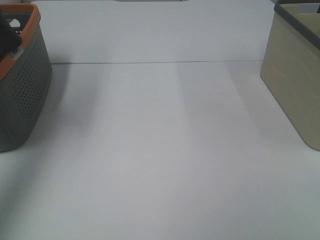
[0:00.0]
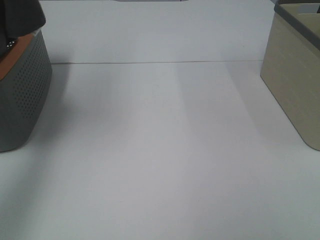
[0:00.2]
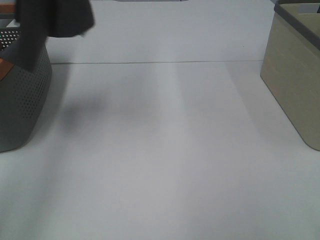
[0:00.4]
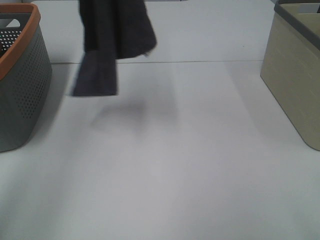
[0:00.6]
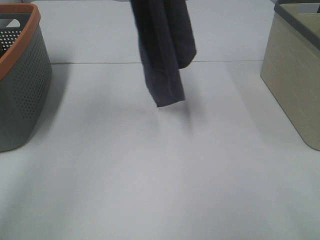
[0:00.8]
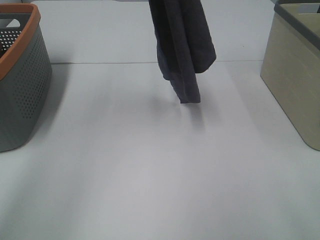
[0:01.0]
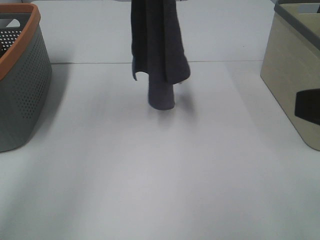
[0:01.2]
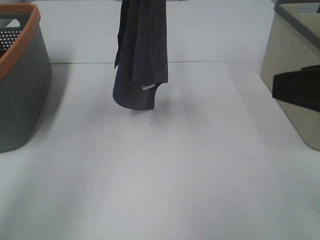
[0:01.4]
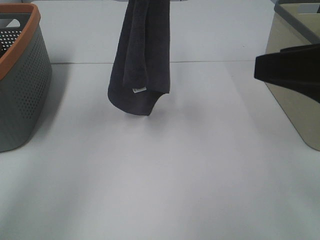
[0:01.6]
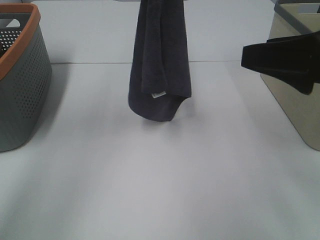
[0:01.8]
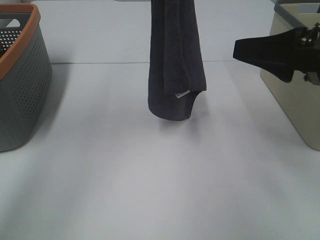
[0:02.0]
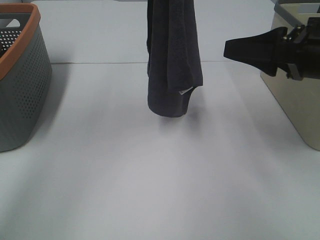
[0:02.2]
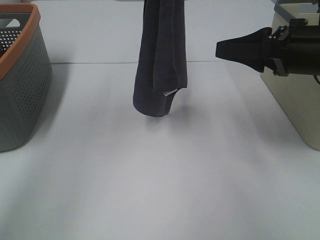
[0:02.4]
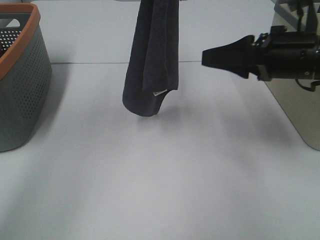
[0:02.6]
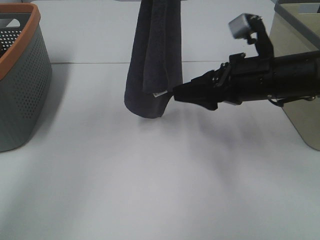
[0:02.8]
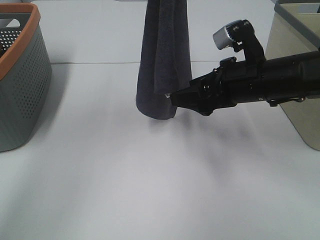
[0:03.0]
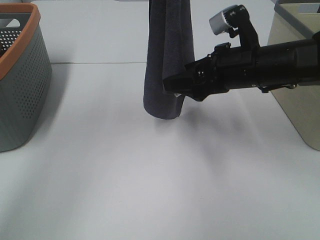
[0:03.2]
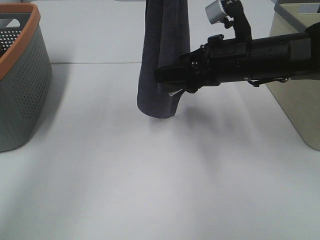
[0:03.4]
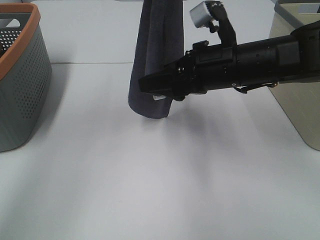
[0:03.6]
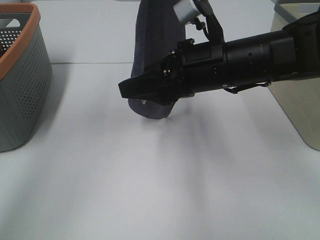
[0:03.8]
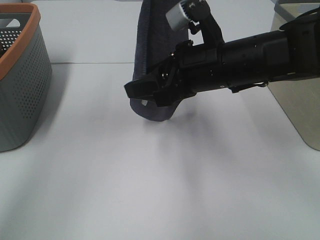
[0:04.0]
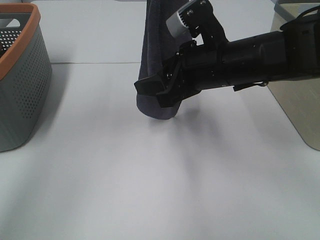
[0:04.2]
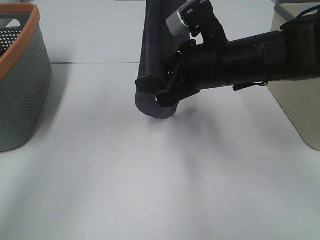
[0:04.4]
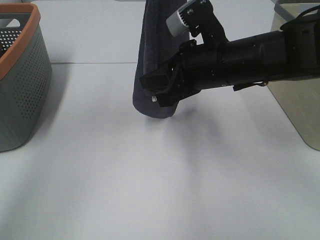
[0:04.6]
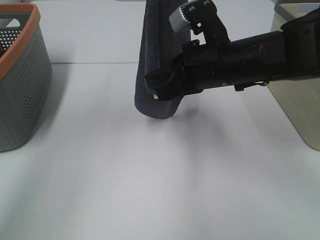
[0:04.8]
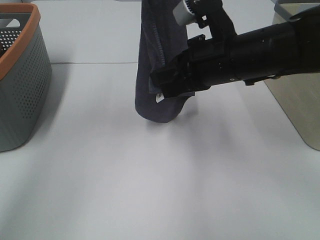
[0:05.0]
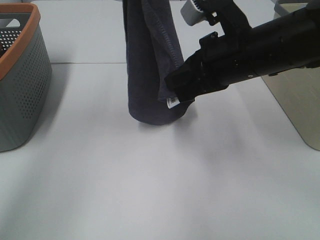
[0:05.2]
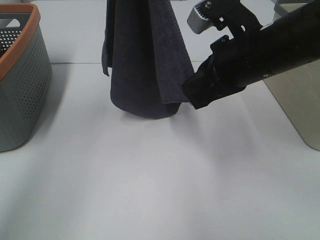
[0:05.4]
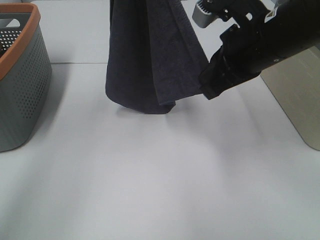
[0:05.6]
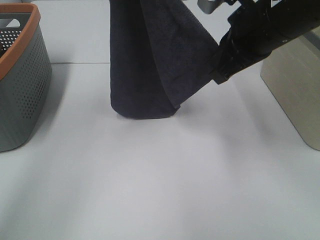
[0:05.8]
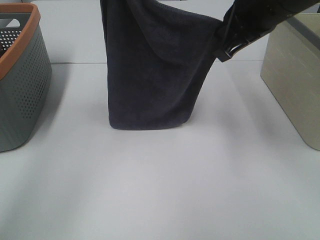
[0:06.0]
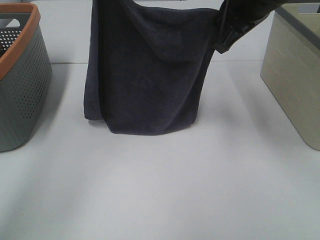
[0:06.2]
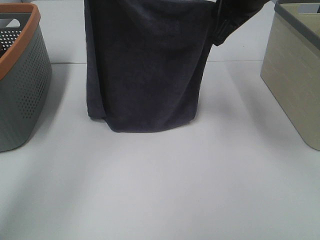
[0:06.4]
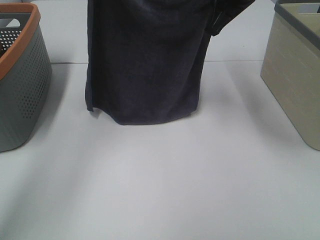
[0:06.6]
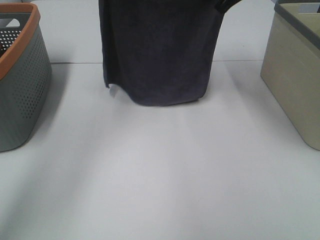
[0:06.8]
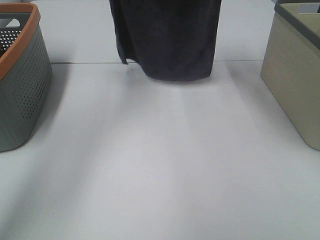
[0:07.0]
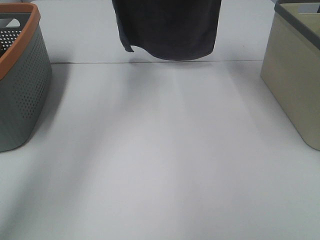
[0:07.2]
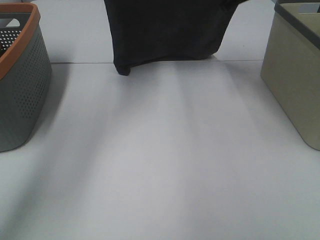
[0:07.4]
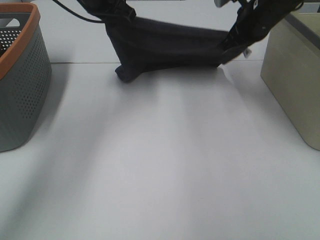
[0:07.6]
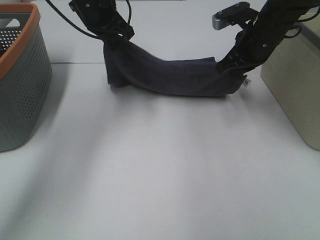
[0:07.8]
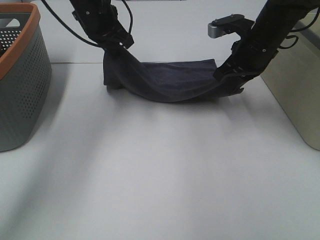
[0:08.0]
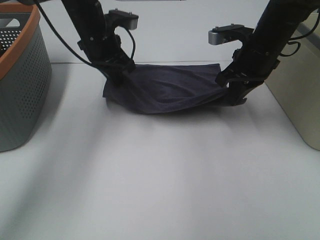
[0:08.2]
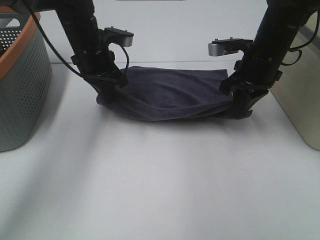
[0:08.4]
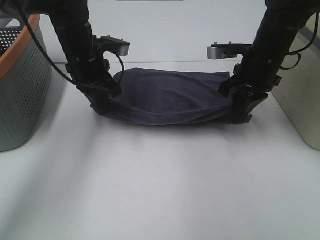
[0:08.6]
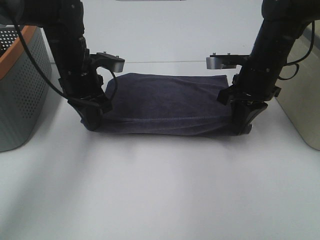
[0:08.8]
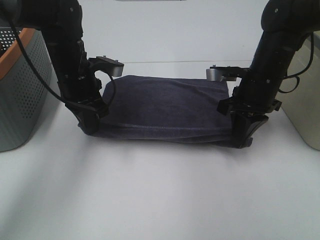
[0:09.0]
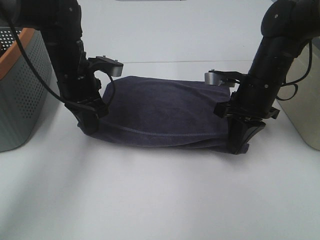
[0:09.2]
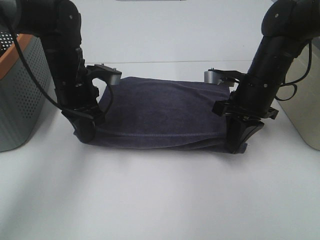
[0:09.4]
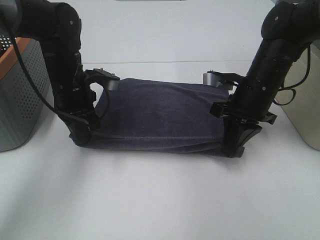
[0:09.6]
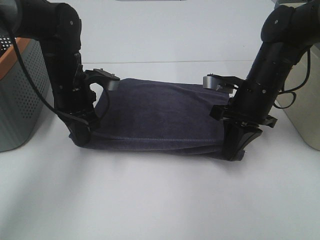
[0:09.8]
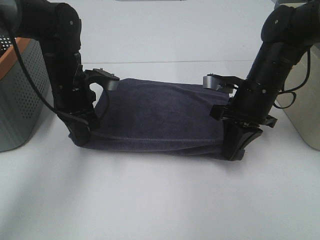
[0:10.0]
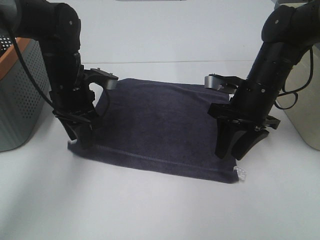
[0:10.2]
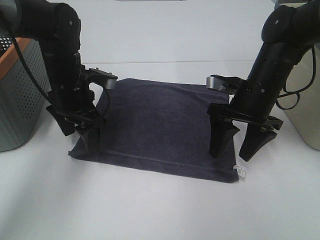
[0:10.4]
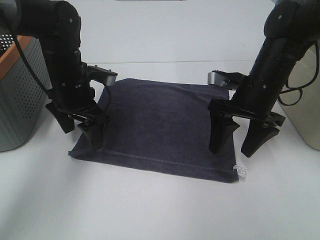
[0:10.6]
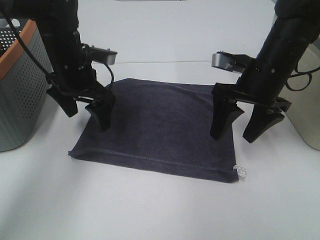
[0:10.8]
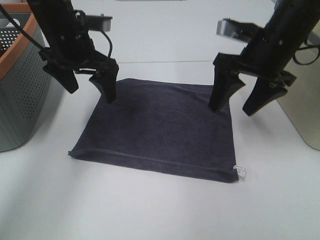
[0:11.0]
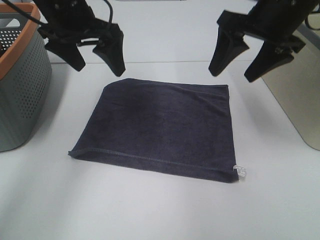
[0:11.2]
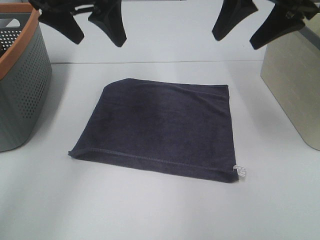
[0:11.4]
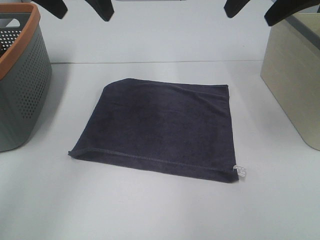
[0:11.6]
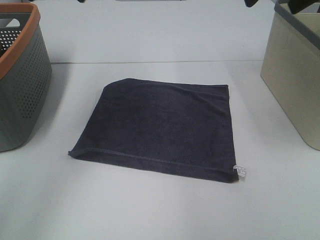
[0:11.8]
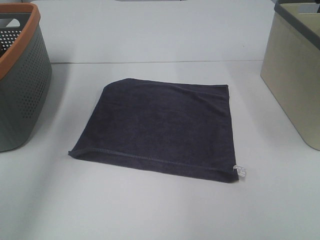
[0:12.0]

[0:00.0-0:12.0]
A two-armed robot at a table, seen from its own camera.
Task of the whole recording: Remove the towel and place it.
Step, 0:00.0 to 0:03.6: Right hand: grab a corner of the grey towel and straighten it.
Step, 0:03.8 to 0:06.4: Left hand: spread the grey towel flat on the table.
Step, 0:03.8 to 0:06.4: Right hand: spread the grey towel flat on the table.
0:00.0 to 0:01.6: The left gripper goes about 25 cm to the right, forward and downward; the right gripper goes roughly 15 cm forward.
0:01.6 to 0:03.0: The right gripper is displaced forward, downward and to the left by roughly 20 cm.
0:03.0 to 0:04.4: The right gripper moves to the left, approximately 5 cm.
0:04.4 to 0:06.0: The left gripper travels downward by roughly 5 cm. Meanwhile the right gripper is displaced upward by about 10 cm, and closes up.
0:06.0 to 0:07.6: The right gripper heads forward and downward, covering roughly 15 cm; the left gripper shifts roughly 15 cm downward and forward.
0:07.6 to 0:09.0: The left gripper moves downward and backward, roughly 15 cm. Meanwhile the right gripper shifts approximately 10 cm backward and downward.
0:09.0 to 0:10.4: The left gripper opens up. Meanwhile the right gripper opens.
0:10.4 to 0:12.0: The two grippers go some 30 cm upward.

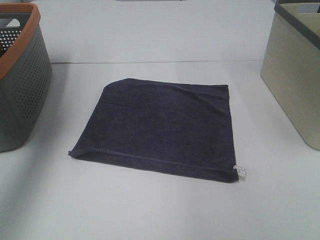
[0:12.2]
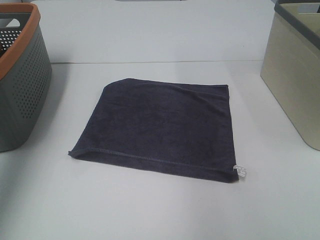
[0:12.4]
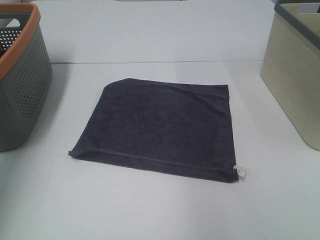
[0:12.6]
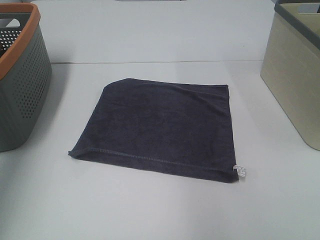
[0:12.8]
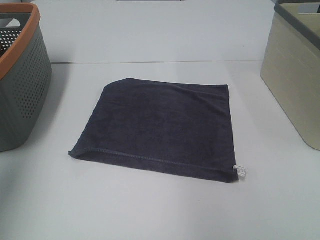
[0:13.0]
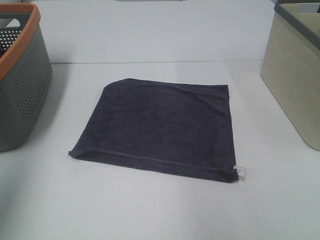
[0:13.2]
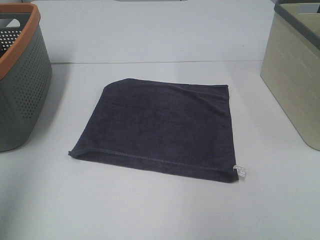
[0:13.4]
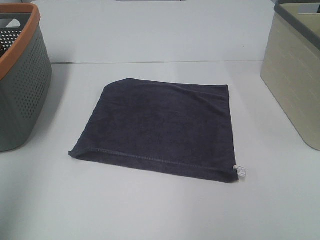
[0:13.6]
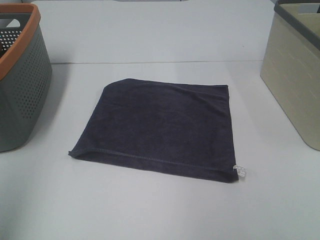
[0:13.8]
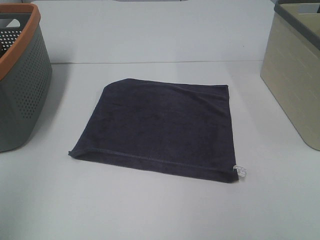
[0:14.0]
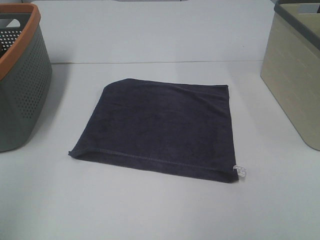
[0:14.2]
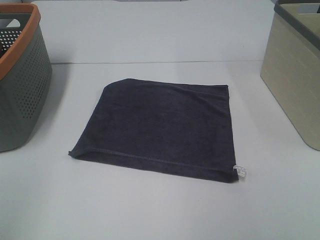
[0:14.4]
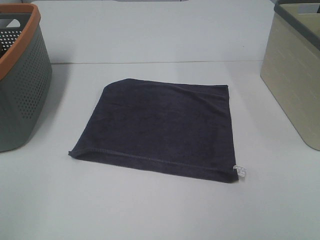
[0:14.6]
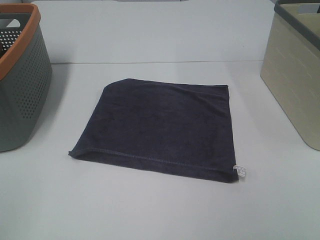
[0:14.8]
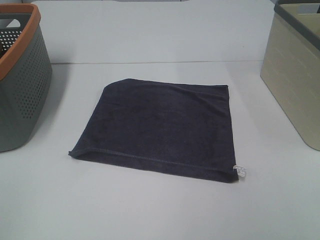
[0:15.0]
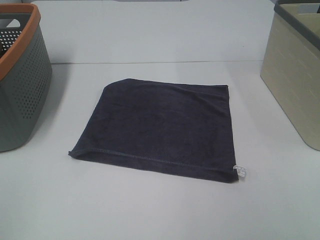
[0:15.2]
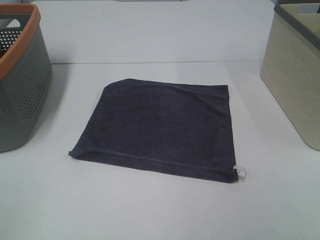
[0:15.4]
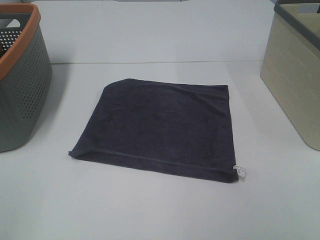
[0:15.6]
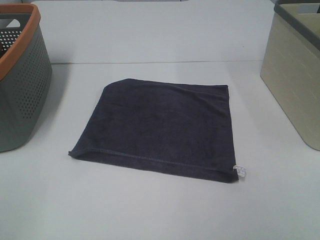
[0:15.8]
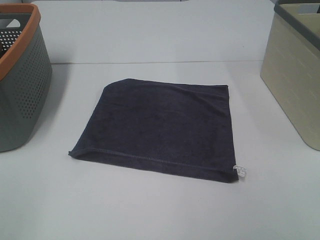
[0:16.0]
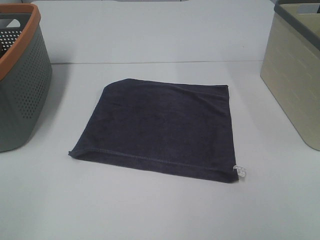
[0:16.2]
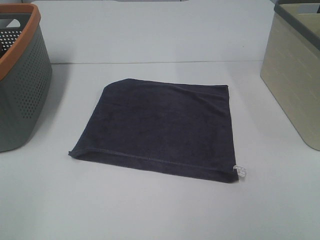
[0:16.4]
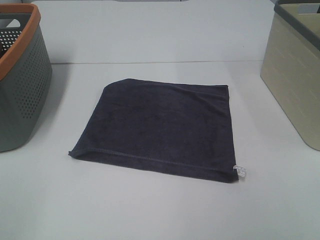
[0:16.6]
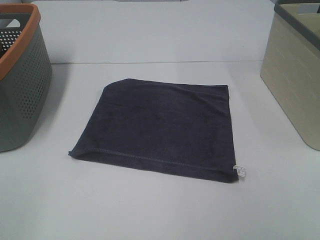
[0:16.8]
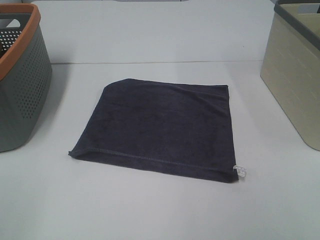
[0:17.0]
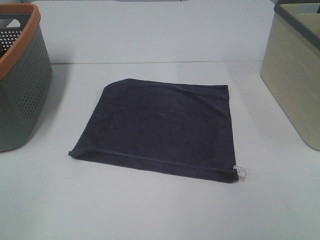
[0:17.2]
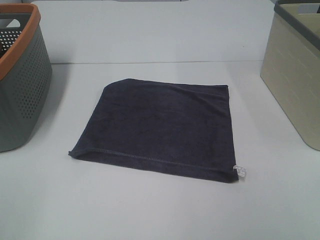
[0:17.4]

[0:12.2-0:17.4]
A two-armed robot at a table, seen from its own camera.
Task of the whole recording: Remove the towel and place it.
0:12.2 to 0:14.0: The left gripper moves backward, approximately 30 cm.
